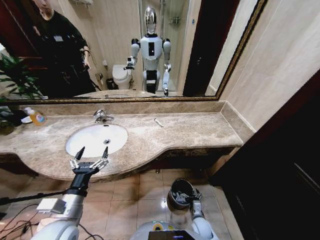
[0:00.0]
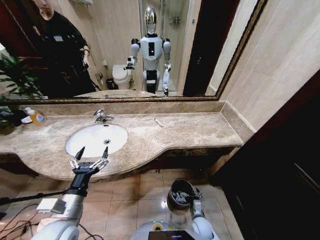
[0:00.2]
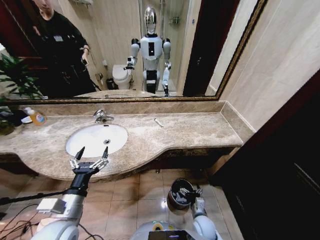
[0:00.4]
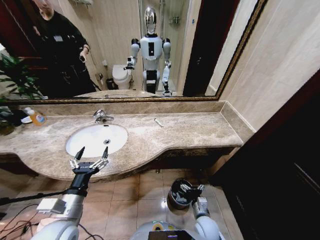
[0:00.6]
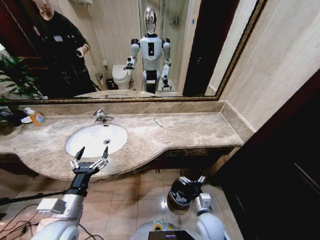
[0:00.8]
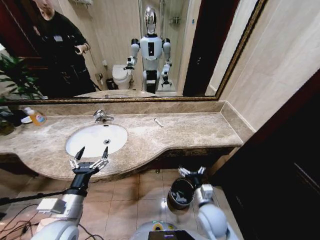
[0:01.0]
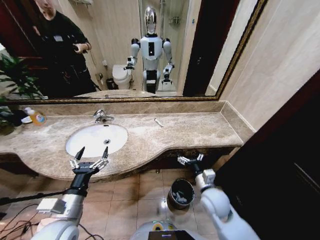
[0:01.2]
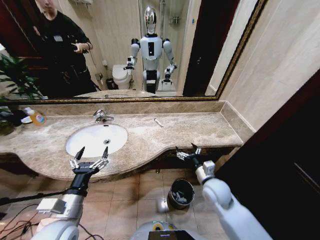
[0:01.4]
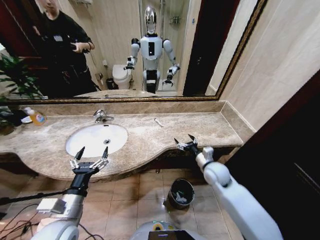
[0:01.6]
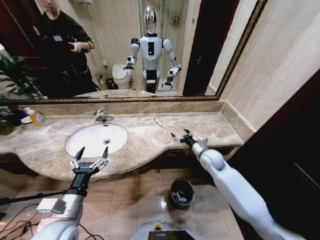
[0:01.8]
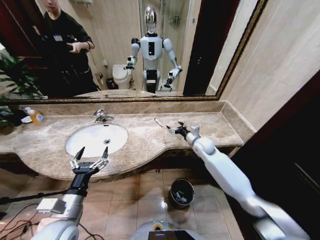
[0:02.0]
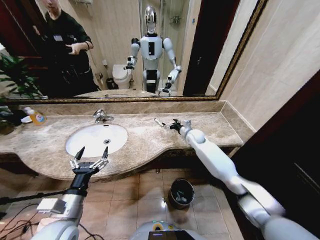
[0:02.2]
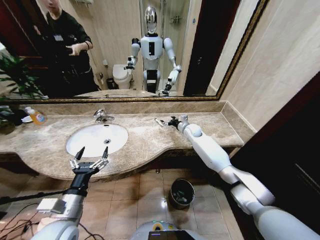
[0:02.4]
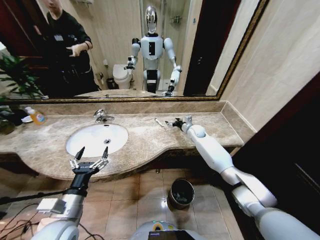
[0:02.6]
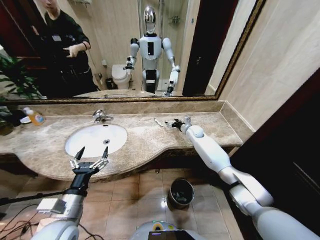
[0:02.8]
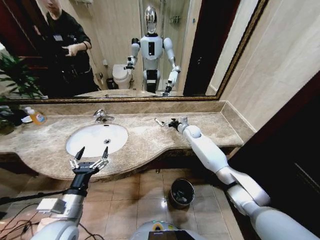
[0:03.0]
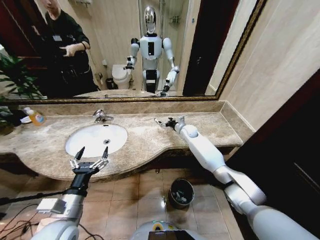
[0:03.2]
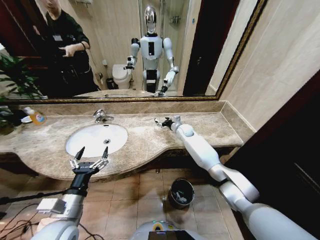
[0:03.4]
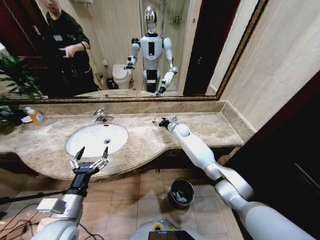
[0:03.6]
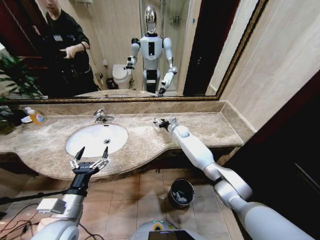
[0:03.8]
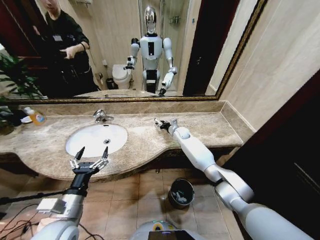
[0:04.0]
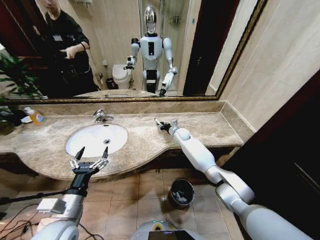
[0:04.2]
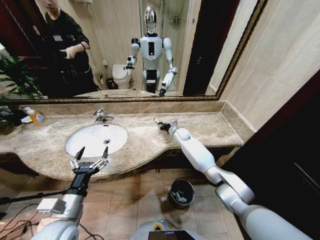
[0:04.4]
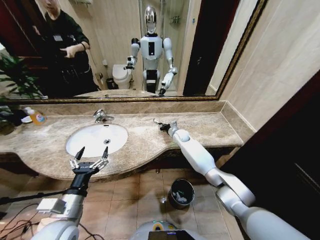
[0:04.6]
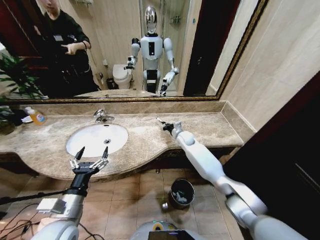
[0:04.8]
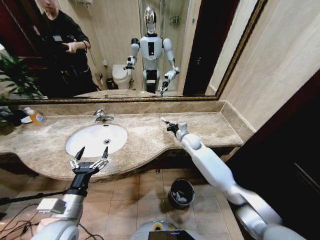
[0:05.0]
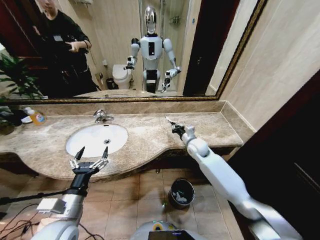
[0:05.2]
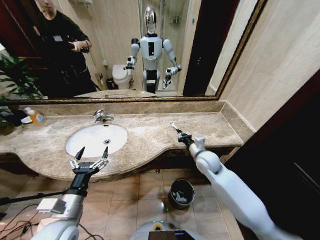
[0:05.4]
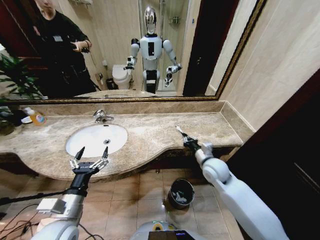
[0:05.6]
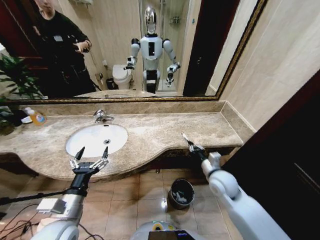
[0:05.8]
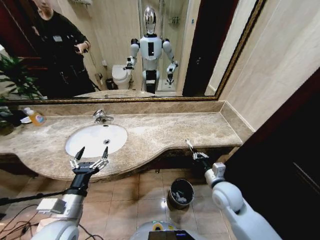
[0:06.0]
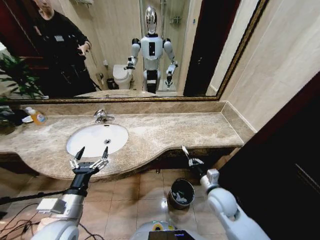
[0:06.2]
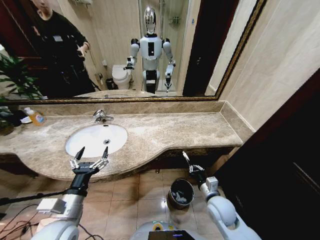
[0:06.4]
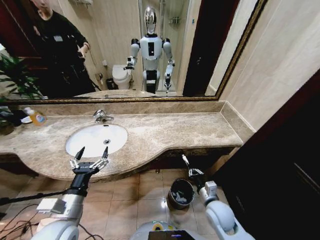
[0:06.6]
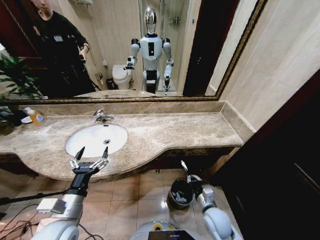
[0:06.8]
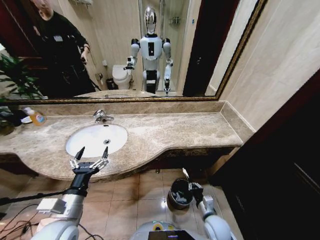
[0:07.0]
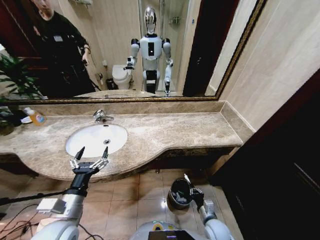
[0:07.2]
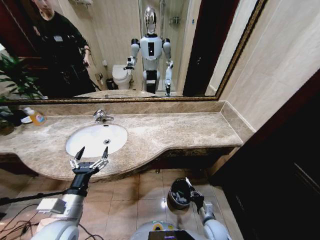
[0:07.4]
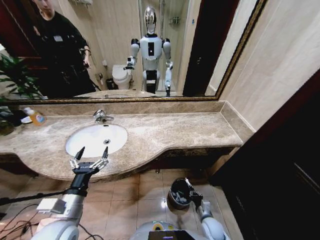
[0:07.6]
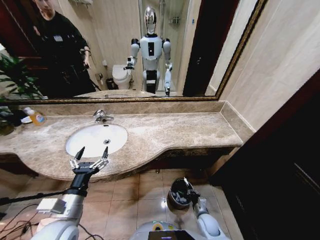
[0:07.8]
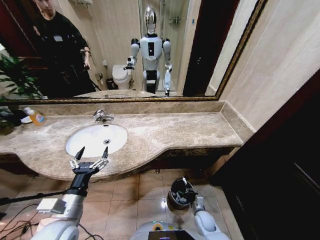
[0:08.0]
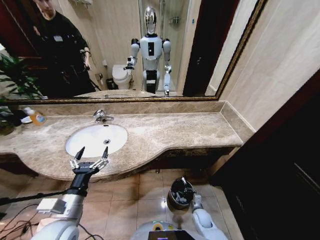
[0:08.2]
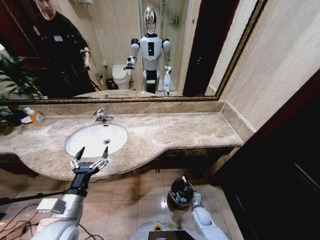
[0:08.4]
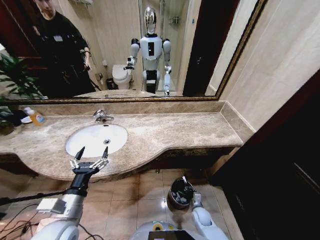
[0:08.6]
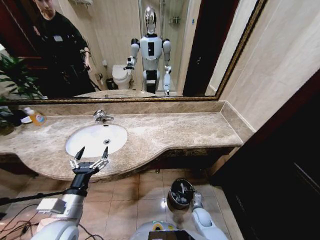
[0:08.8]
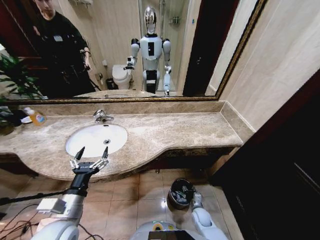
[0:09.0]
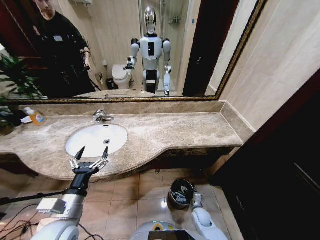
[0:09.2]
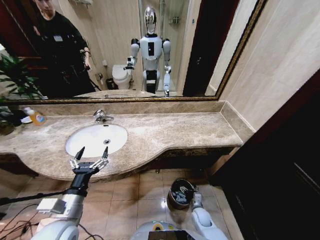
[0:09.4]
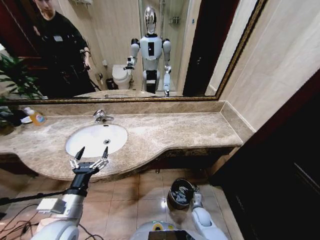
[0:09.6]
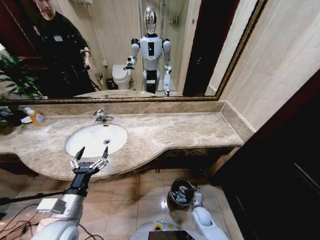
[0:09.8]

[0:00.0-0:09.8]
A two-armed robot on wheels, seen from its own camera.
Task of the whole recording: Pick up the trash from the sink and place it in the trash bin.
0:00.0 to 0:01.4: The right gripper shifts about 25 cm upward.
0:01.4 to 0:02.8: The right gripper is displaced forward by about 30 cm.
0:02.8 to 0:04.2: The right gripper moves to the left, some 5 cm, and closes.
0:04.2 to 0:05.6: The right gripper shifts some 25 cm backward.
0:05.6 to 0:07.0: The right gripper shifts approximately 25 cm downward and backward.
0:07.0 to 0:08.4: The right gripper goes some 15 cm downward.

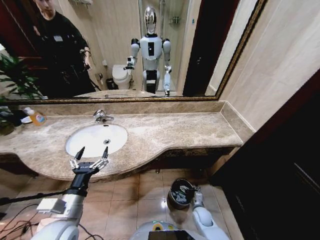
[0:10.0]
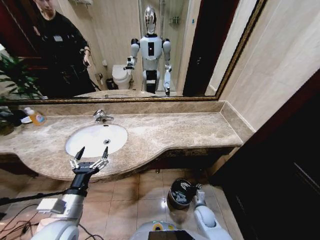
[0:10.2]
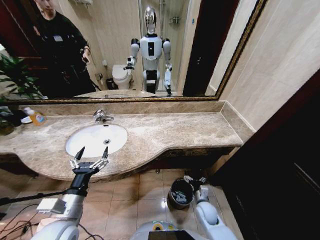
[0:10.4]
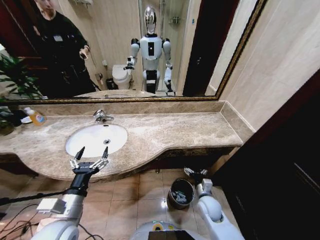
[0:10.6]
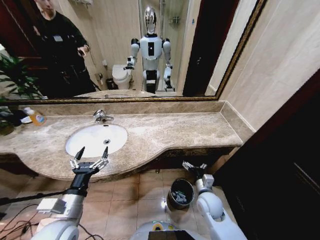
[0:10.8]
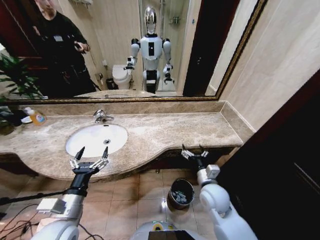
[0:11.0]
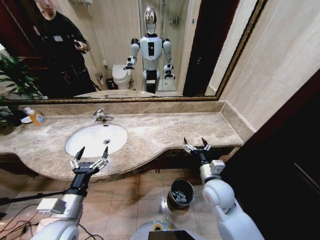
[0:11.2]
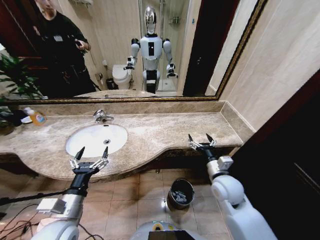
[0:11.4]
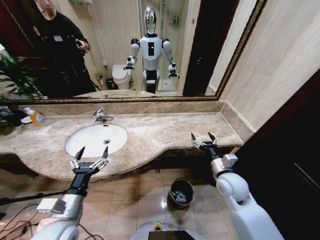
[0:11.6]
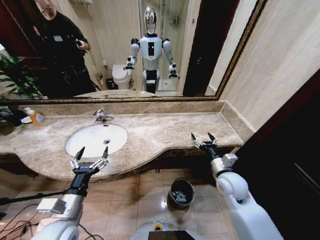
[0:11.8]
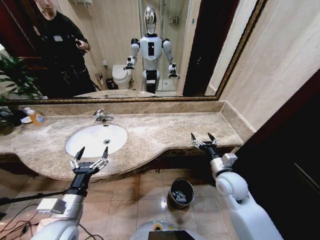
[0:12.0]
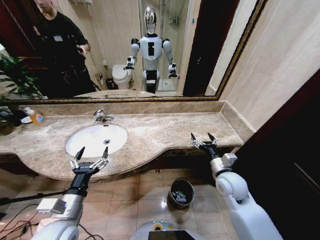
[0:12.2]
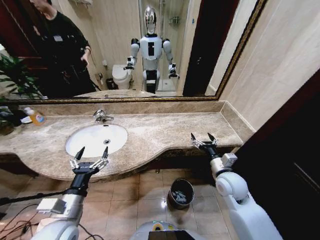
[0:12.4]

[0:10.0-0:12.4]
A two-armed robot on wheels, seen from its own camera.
Task of the whole recording: Pick up the trash from the sink and place it in the trash bin.
0:10.0 to 0:11.2: The right gripper shifts some 30 cm upward.
0:11.2 to 0:12.4: The right gripper shifts about 5 cm to the right.
